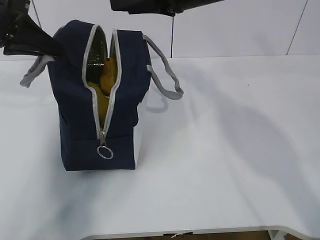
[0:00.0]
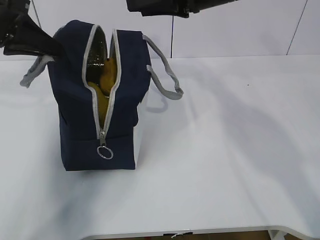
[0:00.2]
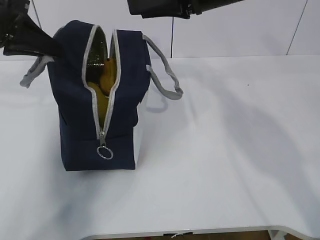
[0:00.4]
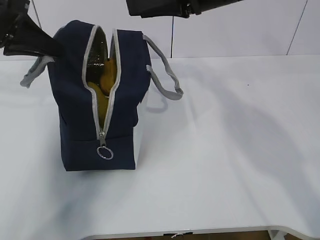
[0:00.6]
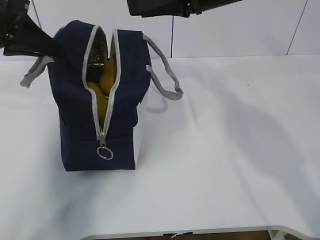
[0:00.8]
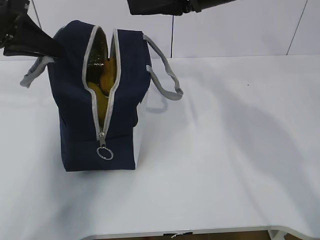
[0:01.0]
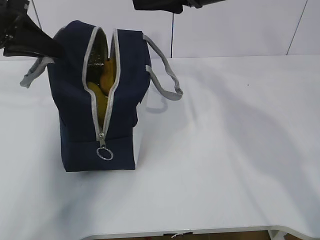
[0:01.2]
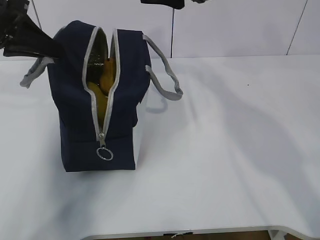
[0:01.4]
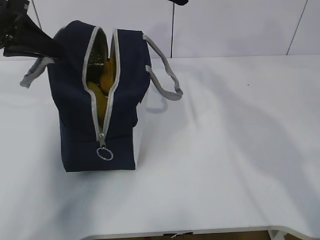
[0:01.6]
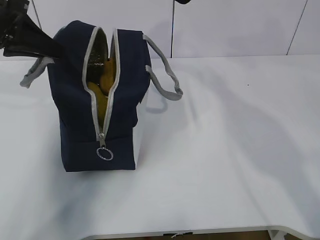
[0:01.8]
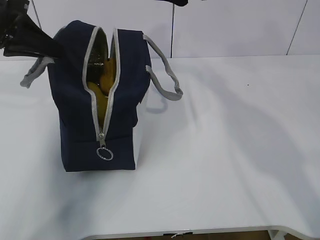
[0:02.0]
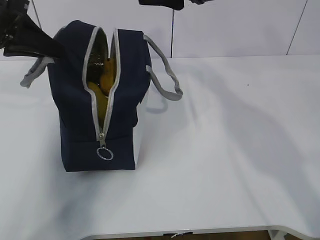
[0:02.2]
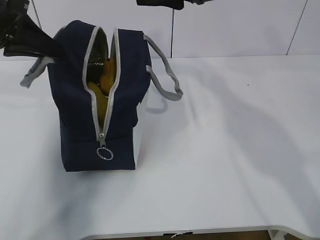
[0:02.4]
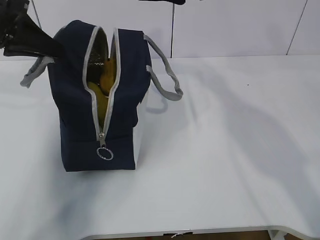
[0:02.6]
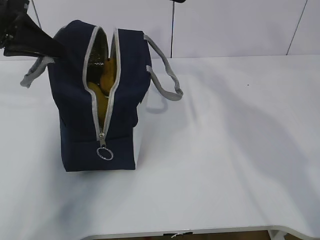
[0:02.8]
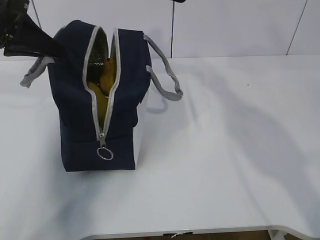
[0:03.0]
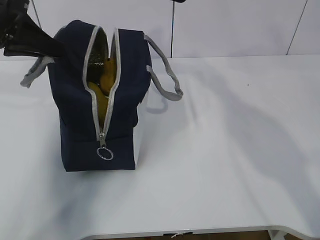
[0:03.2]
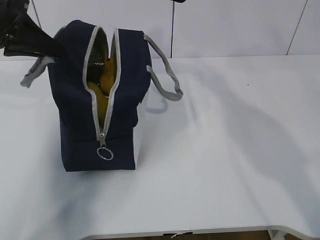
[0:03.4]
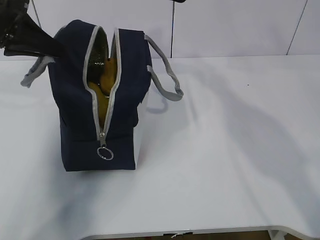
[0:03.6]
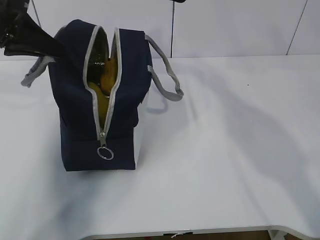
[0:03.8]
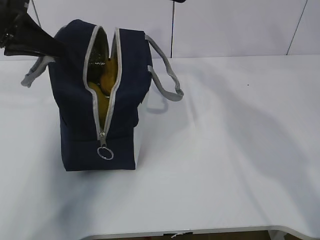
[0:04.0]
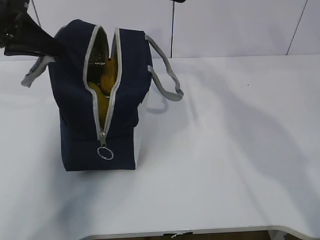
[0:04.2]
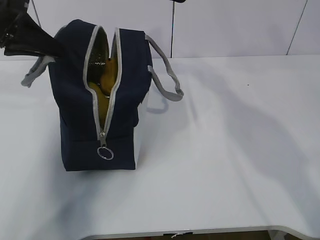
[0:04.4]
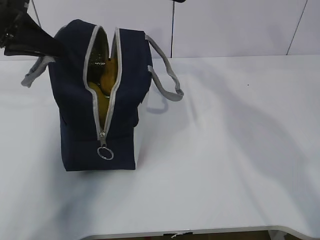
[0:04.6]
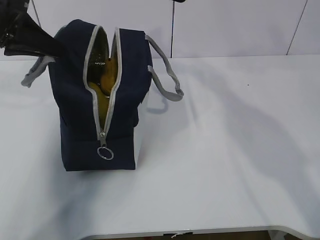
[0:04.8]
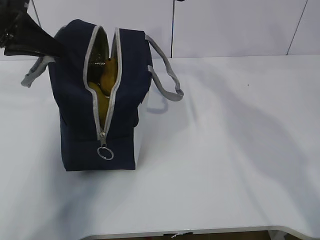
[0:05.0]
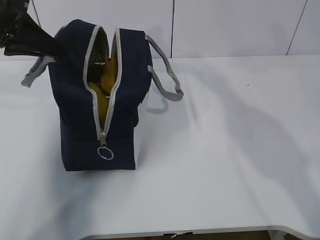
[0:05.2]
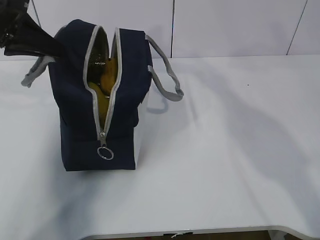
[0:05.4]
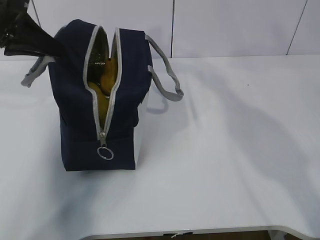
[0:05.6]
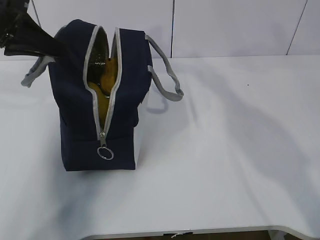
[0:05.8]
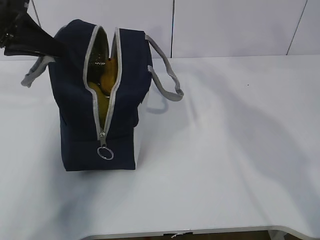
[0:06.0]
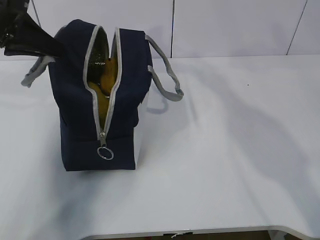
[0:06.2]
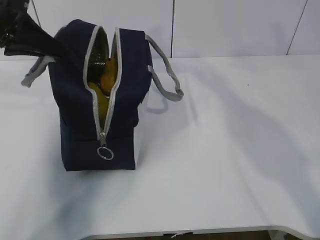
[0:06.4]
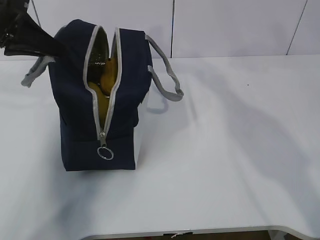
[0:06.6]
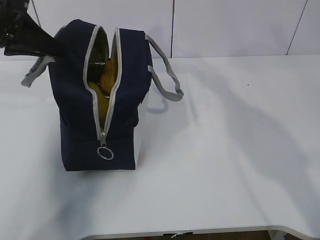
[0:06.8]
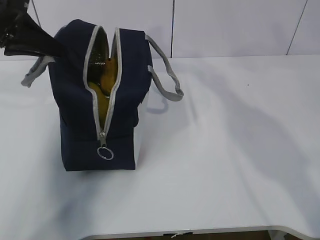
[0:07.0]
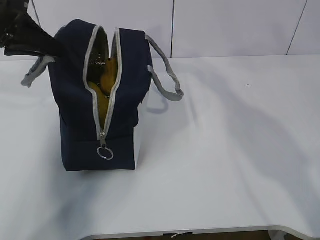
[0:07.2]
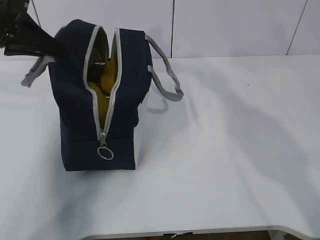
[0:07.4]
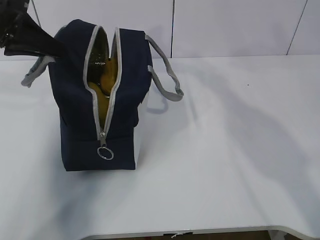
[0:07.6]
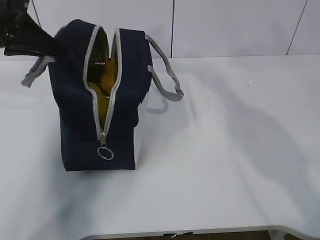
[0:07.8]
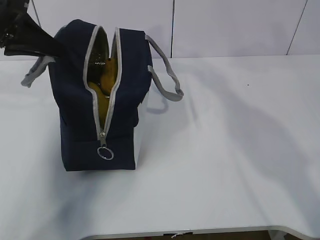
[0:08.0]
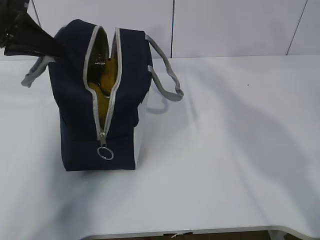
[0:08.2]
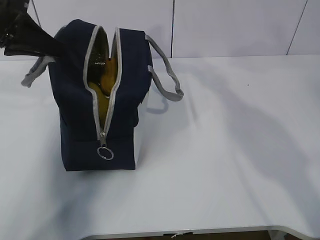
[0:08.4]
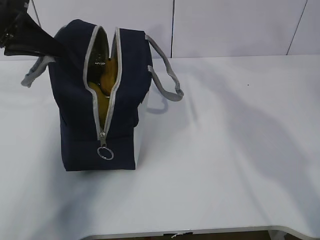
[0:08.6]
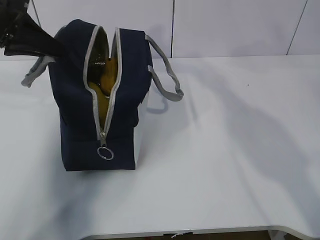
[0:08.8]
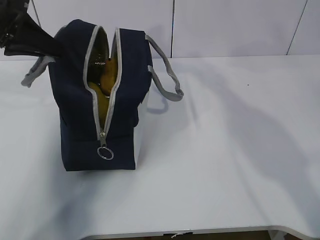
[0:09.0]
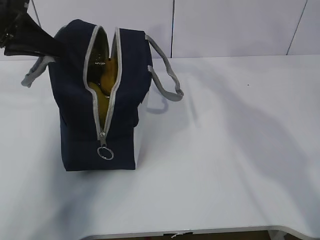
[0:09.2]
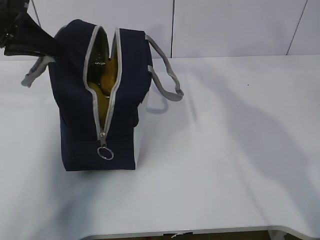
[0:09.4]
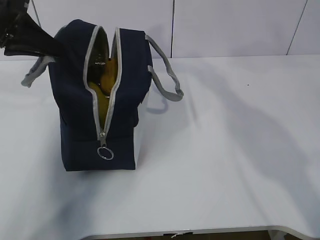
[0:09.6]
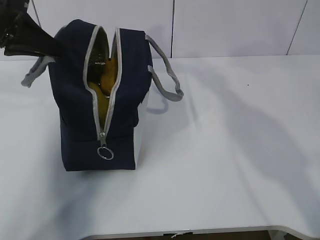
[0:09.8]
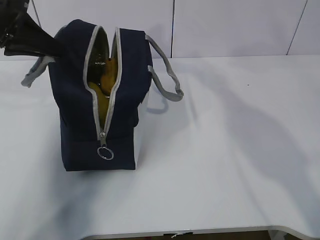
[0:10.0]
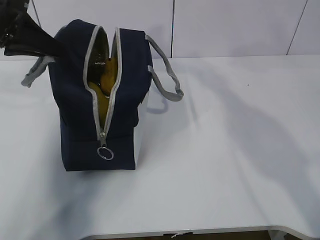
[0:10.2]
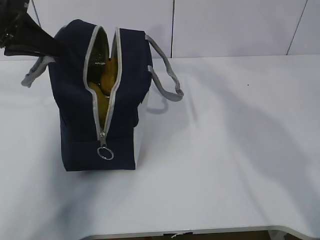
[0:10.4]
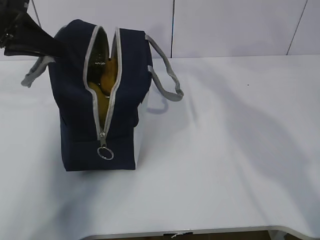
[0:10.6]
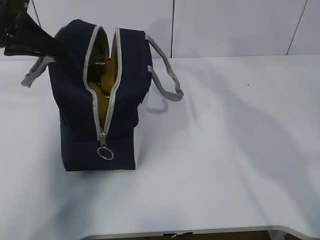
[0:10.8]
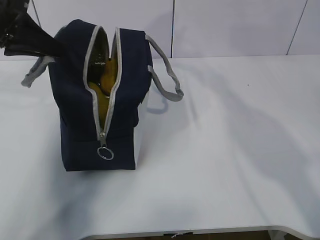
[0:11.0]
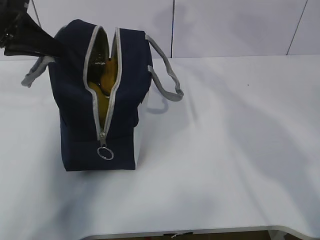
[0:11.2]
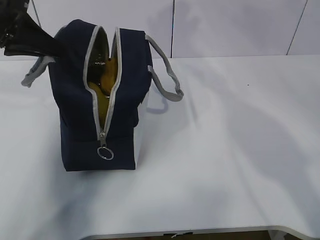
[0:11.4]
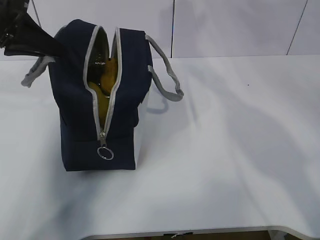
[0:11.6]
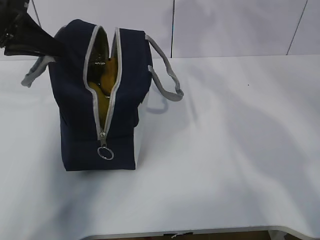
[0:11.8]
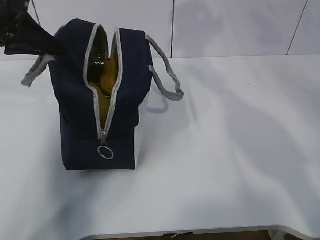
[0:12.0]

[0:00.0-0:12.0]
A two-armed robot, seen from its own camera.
Step, 0:00.0 to 0:04.0: Grab the lunch bag with your right hand.
0:00.0 to 0:01.6: The right gripper changes place by roughly 5 cm.
0:03.0 to 0:10.4: Both grippers stay put.
0:10.4 to 0:12.0: The right gripper moves to the right and forward, about 10 cm.

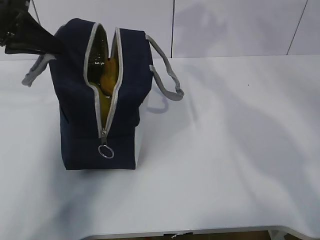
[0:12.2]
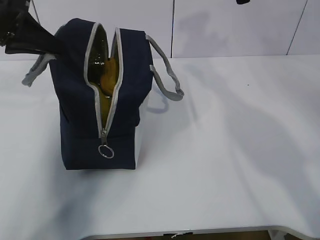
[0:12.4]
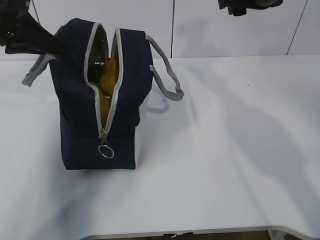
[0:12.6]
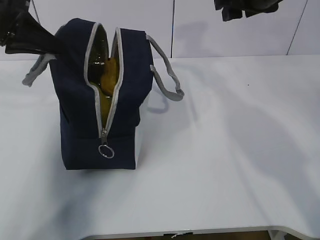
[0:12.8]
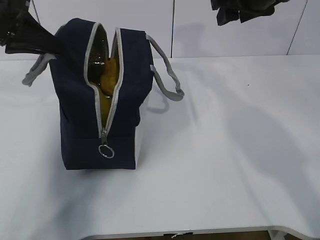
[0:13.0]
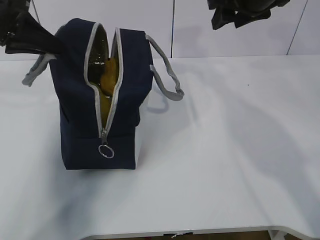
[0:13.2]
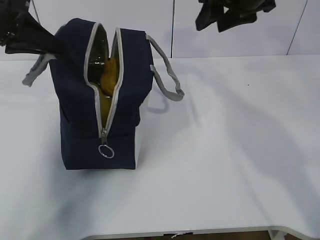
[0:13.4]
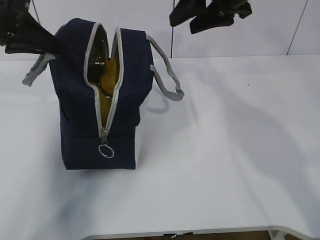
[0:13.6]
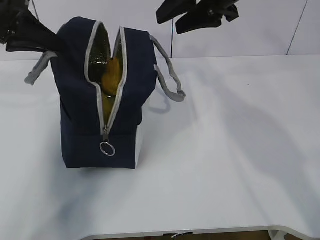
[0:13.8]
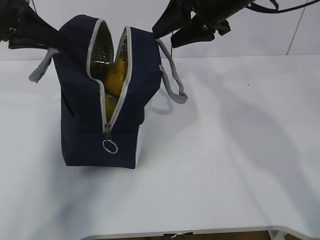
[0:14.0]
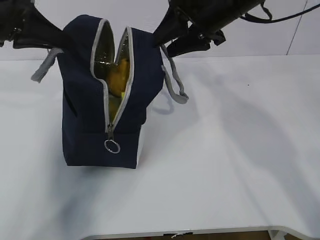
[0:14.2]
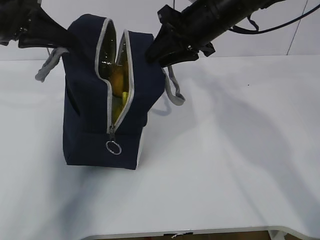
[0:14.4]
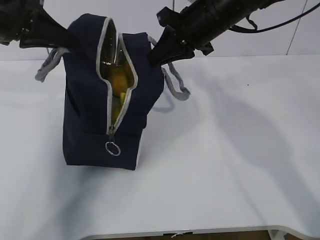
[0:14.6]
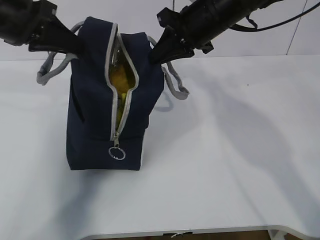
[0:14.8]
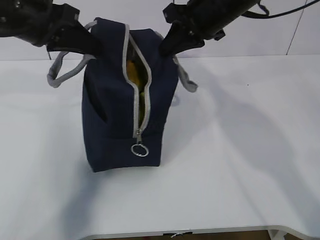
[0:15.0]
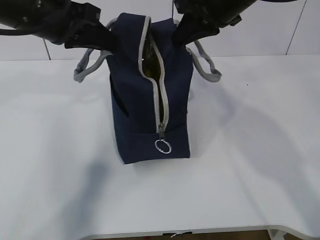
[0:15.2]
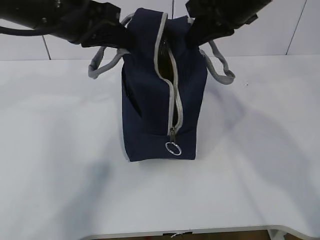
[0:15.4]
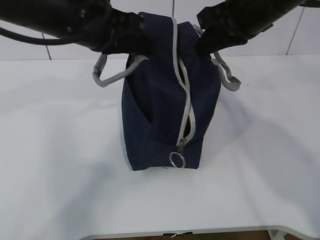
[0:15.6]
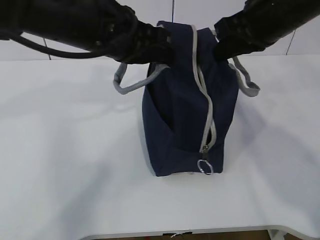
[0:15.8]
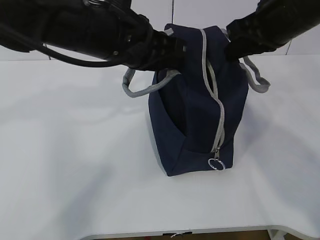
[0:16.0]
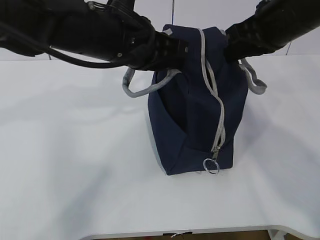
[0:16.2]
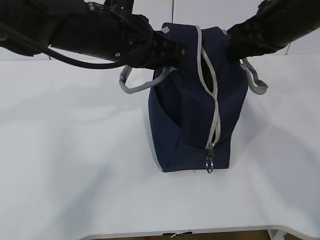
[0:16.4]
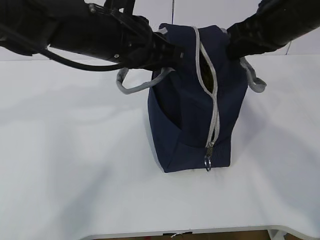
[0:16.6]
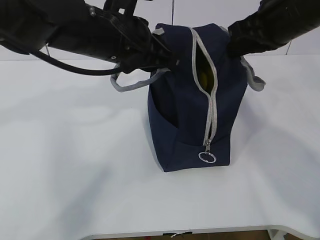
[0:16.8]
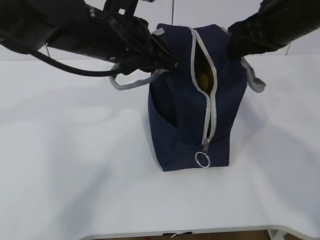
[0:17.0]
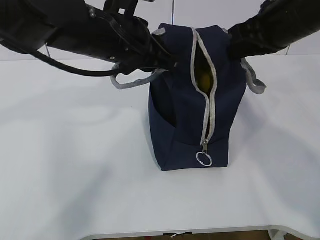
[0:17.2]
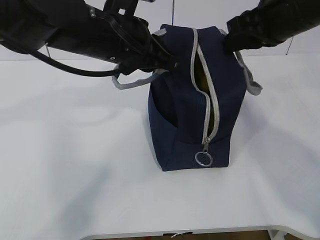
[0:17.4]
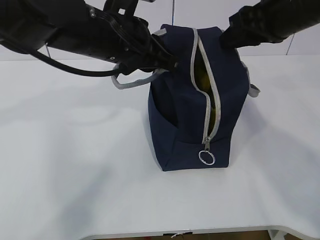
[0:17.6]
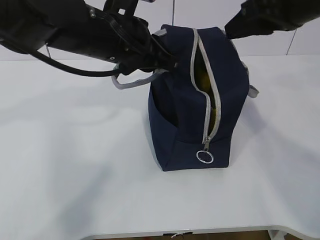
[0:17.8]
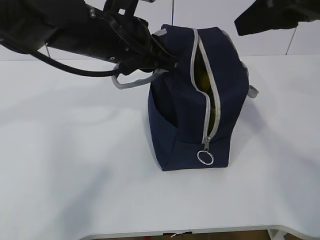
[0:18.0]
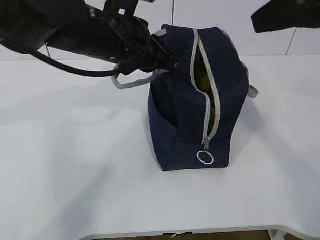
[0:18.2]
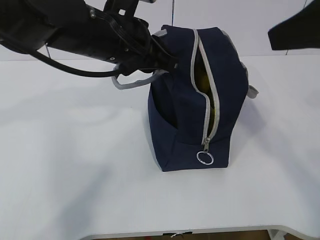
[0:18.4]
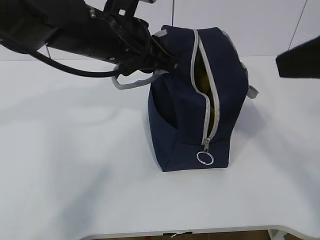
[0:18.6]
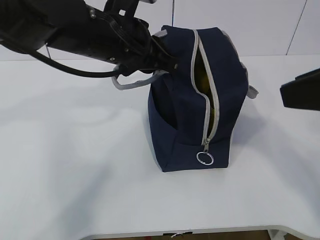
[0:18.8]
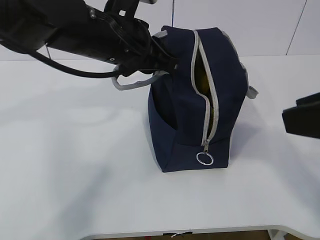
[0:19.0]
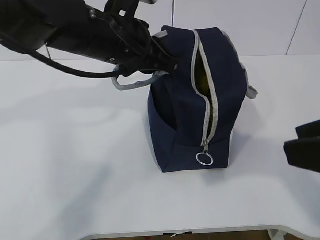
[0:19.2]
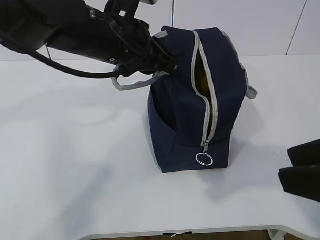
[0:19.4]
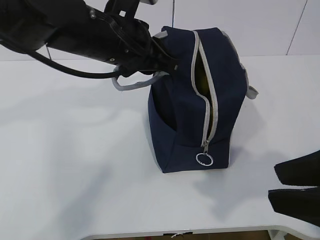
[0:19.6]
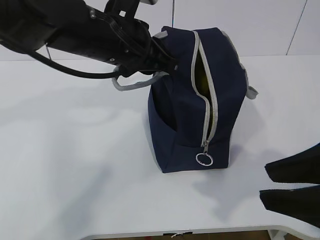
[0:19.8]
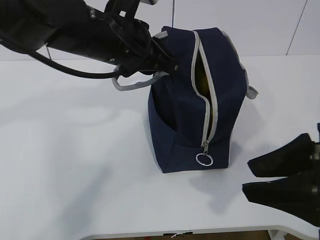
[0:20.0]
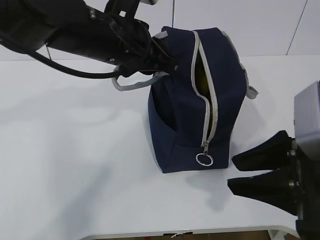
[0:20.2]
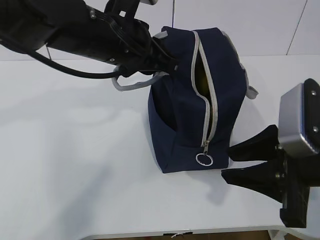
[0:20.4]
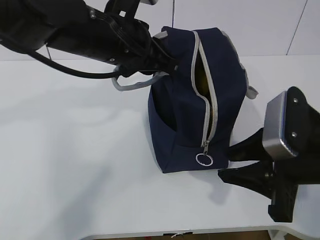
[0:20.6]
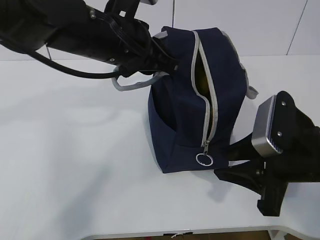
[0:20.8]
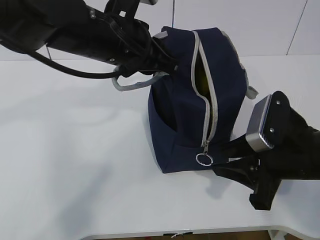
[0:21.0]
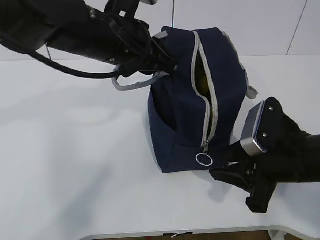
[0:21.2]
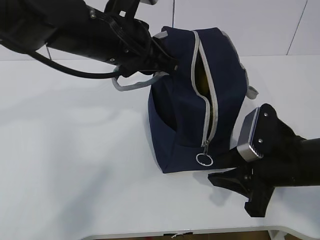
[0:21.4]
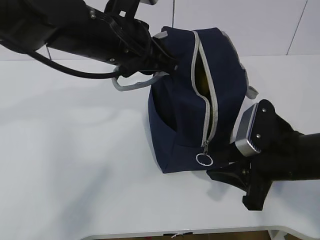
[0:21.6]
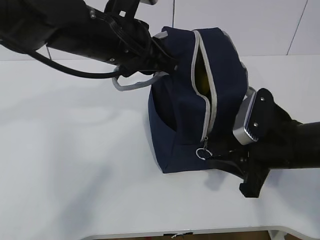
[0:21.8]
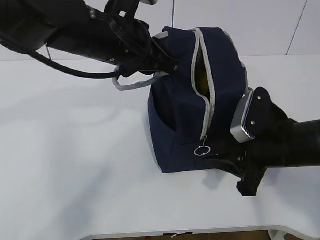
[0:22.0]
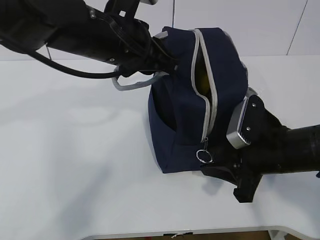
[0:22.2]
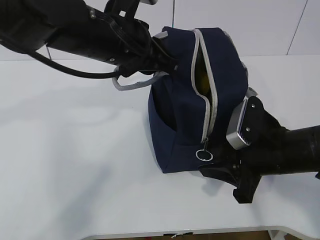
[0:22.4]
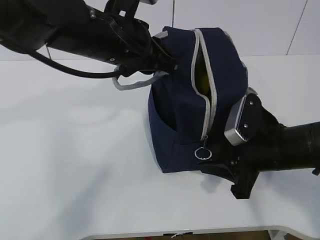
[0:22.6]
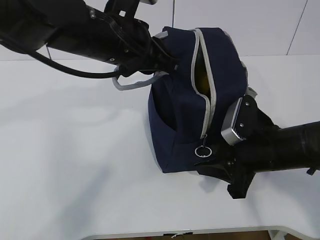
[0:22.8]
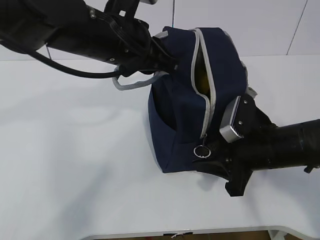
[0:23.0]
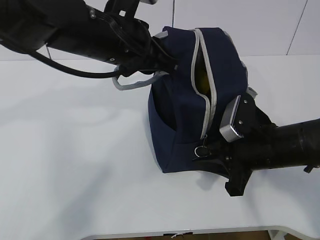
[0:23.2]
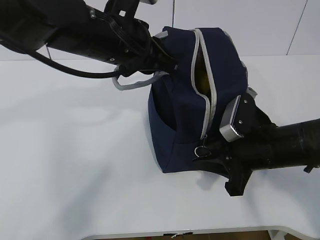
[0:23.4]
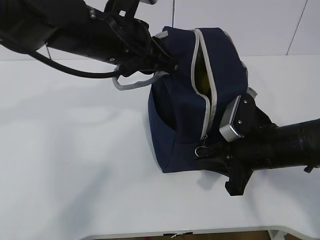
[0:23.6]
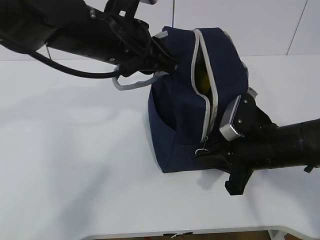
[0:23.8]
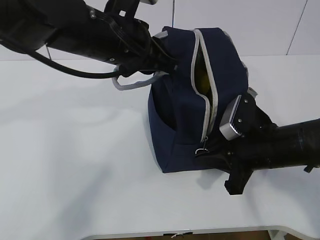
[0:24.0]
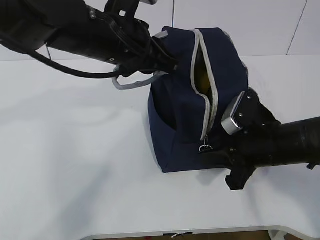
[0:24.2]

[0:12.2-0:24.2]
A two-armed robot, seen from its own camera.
Step, 0:12.2 to 0:14.8: Grab the lunch bag with your left hand.
0:12.2 to 0:13.8: The right gripper heads to the left and backward, covering approximately 10 cm.
0:13.8 to 0:15.2: The right gripper closes up. Meanwhile the left gripper heads to the right, covering approximately 10 cm.
0:15.2 to 0:16.6: The right gripper travels to the right by roughly 5 cm, while the left gripper is displaced to the right by about 10 cm.
0:16.6 to 0:18.2: The right gripper travels backward and upward by about 15 cm, and opens its fingers.
0:18.2 to 0:19.8: The right gripper travels downward and backward by approximately 15 cm.
0:19.8 to 0:21.2: The right gripper heads forward and downward, covering approximately 15 cm.
0:21.2 to 0:22.6: The grippers make only small movements.
0:22.6 to 0:24.2: The right gripper closes its fingers.
